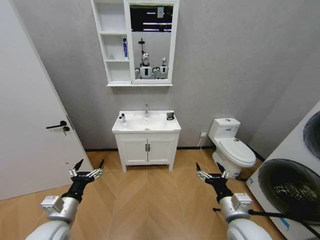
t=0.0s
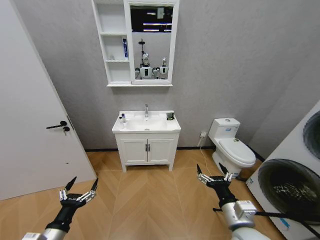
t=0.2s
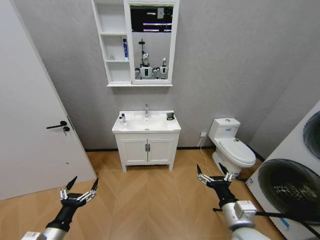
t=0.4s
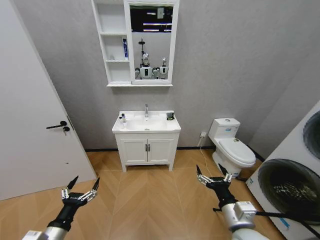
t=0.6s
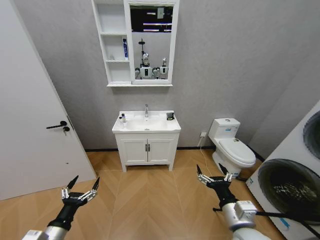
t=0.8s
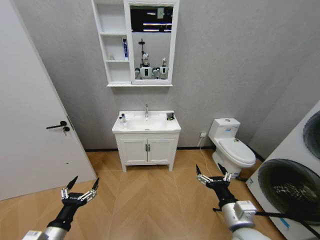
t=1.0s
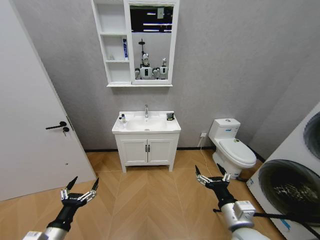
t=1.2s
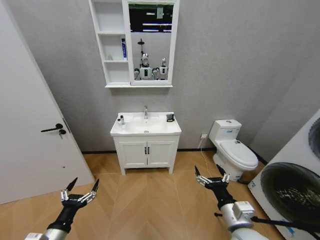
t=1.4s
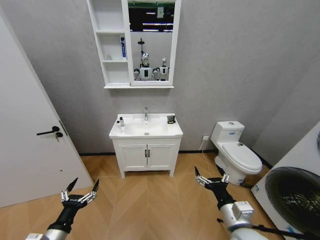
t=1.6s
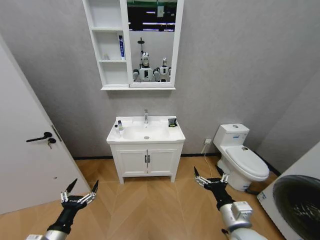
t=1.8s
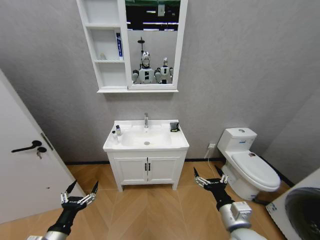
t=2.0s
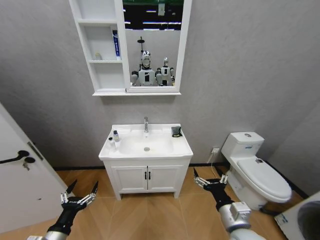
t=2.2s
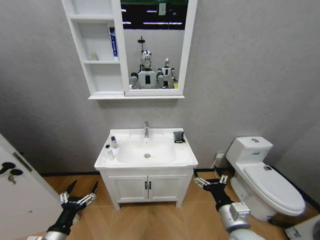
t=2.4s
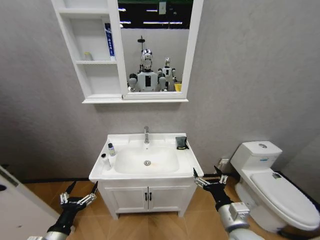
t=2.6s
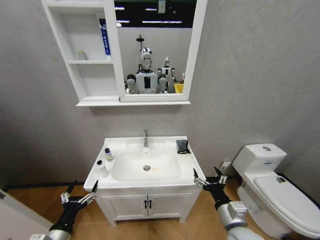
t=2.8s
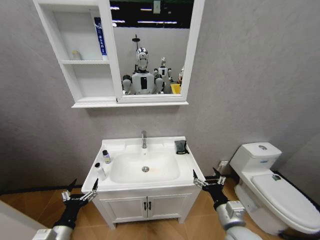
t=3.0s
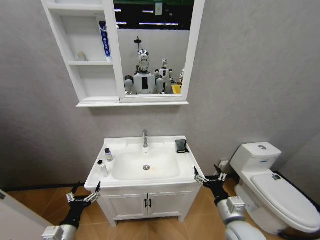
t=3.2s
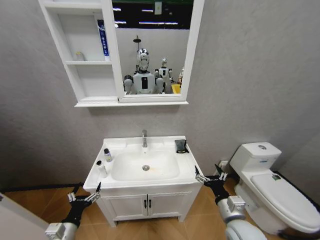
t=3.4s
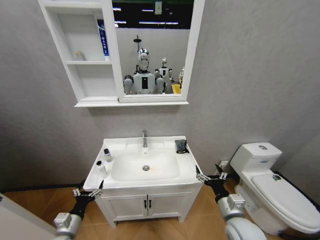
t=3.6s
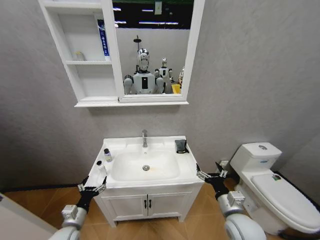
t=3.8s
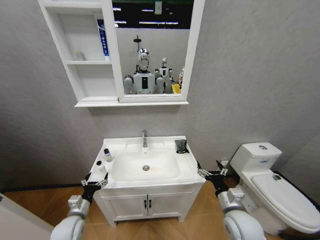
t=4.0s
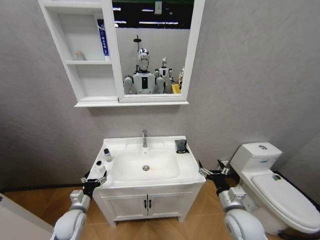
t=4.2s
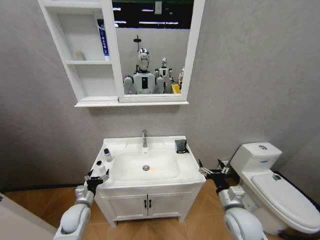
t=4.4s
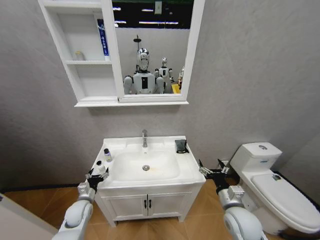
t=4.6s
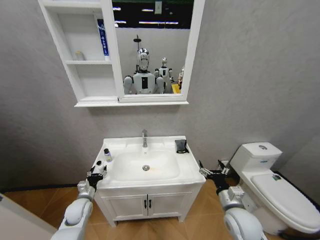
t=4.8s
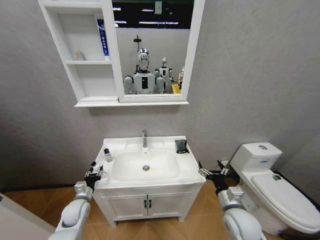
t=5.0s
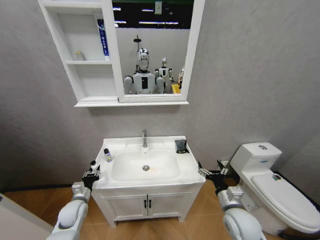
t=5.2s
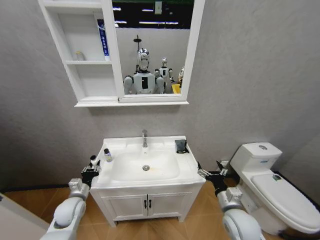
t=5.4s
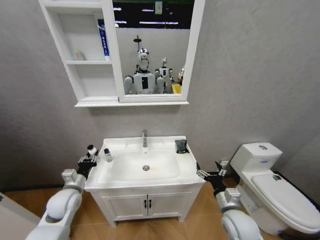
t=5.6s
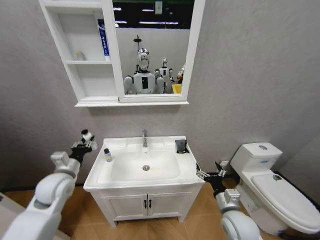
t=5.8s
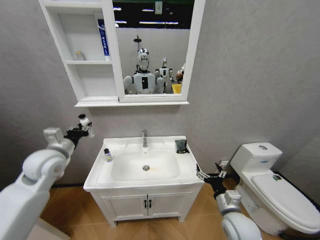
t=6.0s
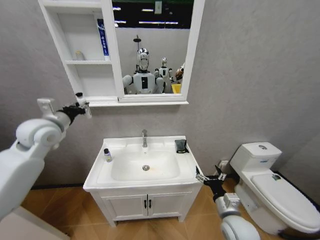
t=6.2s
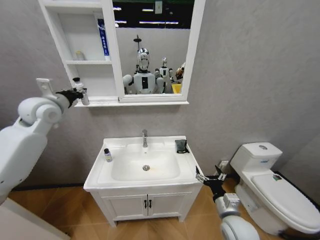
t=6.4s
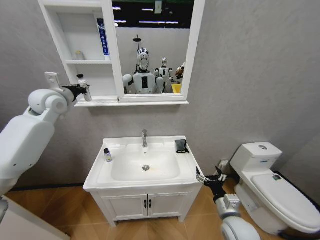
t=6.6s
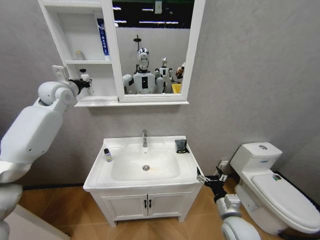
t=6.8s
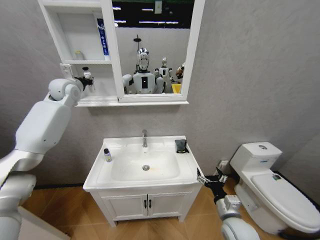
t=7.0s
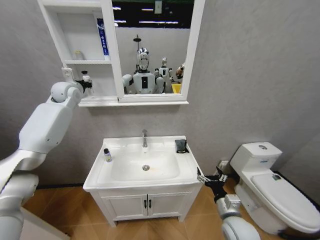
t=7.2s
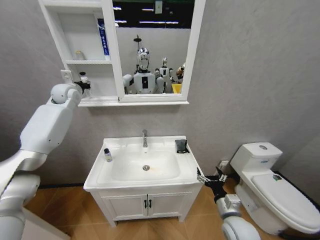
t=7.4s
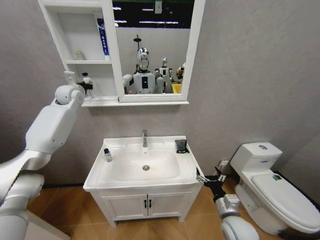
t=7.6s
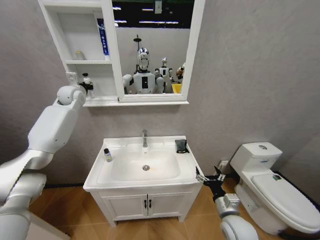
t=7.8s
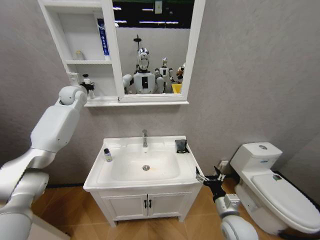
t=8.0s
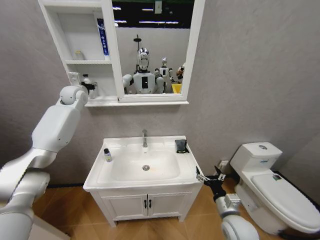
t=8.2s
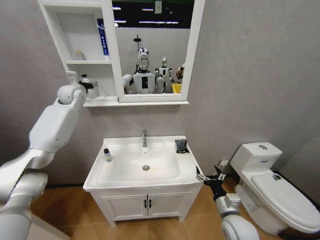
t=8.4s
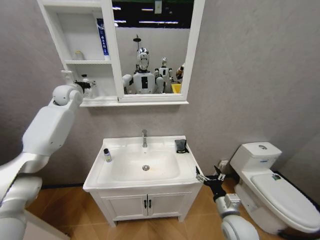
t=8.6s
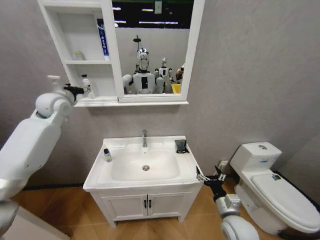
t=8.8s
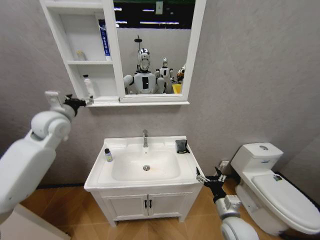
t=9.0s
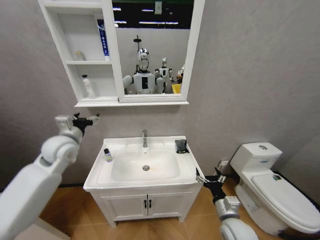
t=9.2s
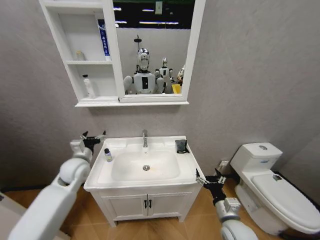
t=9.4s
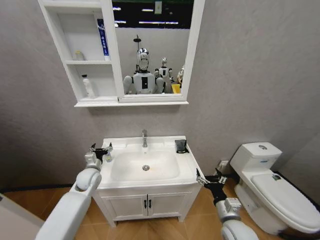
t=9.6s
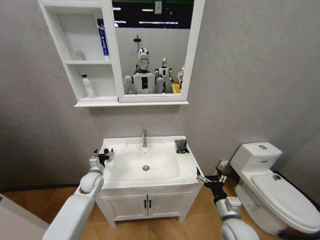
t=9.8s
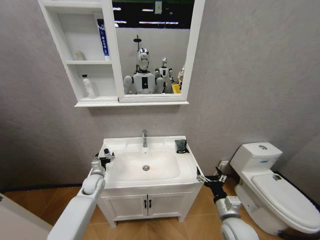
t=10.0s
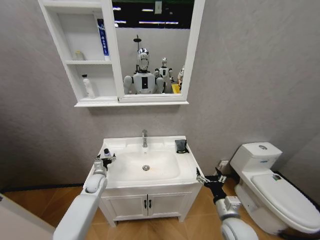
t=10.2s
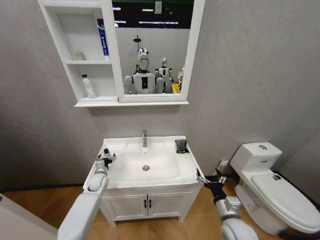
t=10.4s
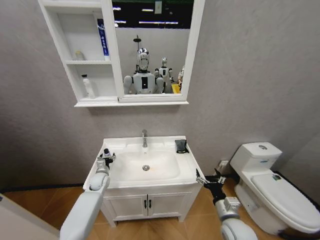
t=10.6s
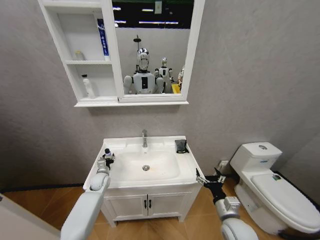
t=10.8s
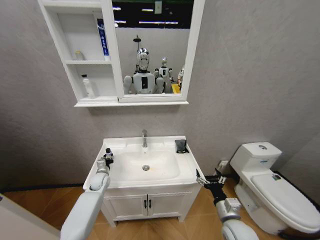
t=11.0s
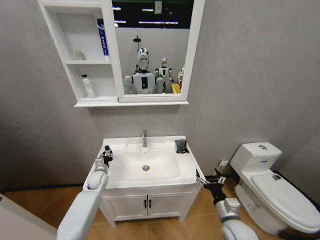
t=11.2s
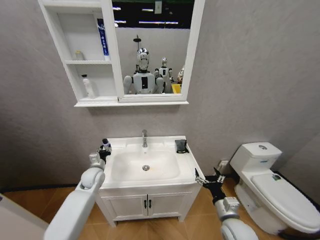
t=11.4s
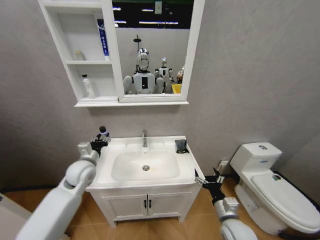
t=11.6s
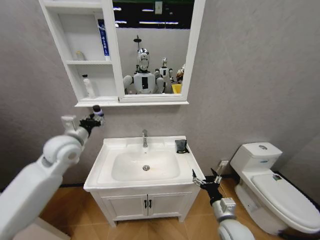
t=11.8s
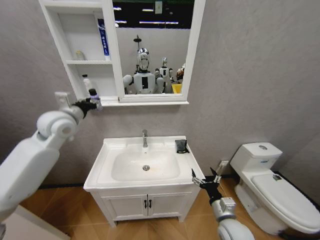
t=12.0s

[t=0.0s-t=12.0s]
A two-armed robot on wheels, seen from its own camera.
Task of the whole recording: Move facial cleanser and shampoo from washbasin to cabinet, then wipe washbasin with towel.
t=3.0s to t=4.4s: The right gripper moves forward, some 5 cm; the left gripper is displaced forward and downward by about 15 cm.
t=4.4s to t=6.0s: The left gripper moves upward, approximately 25 cm, and closes.
t=6.0s to t=7.6s: The left gripper heads forward and upward, covering approximately 30 cm.
t=7.6s to t=9.0s: The left gripper is displaced backward by about 15 cm, and opens up.
t=9.0s to t=10.4s: The left gripper travels downward by about 35 cm.
t=10.4s to t=12.0s: The left gripper goes about 40 cm upward, and closes.

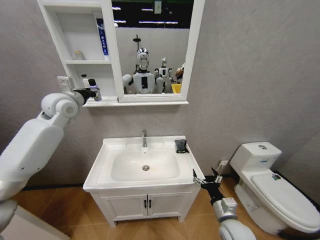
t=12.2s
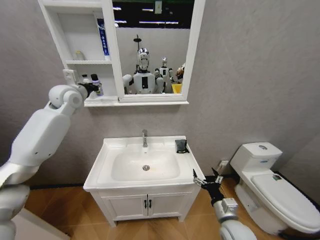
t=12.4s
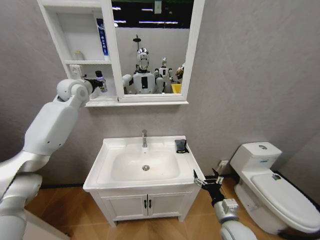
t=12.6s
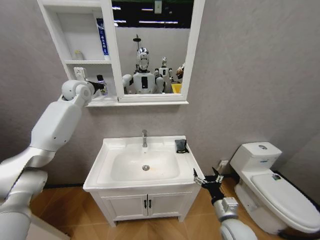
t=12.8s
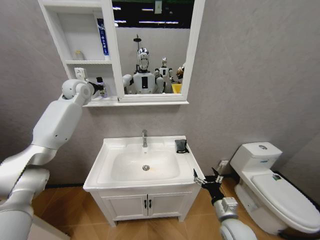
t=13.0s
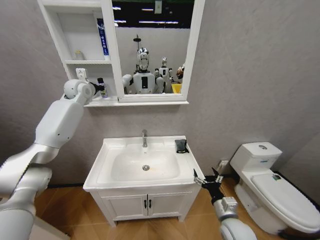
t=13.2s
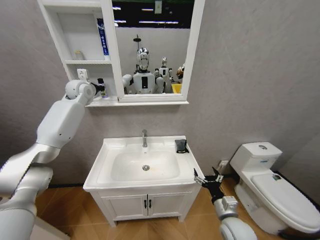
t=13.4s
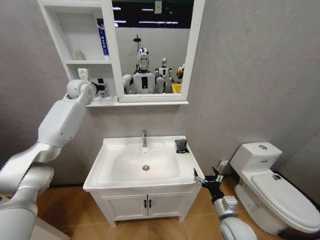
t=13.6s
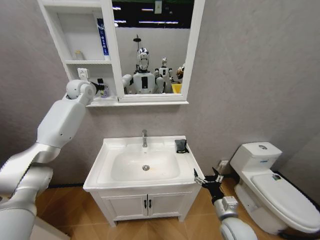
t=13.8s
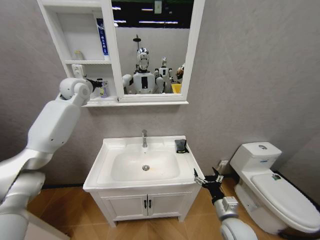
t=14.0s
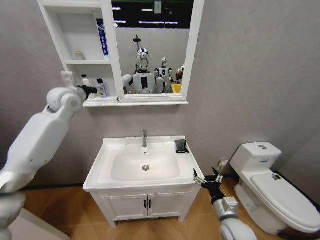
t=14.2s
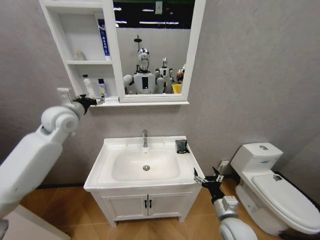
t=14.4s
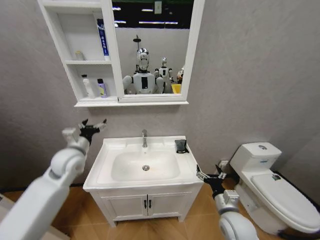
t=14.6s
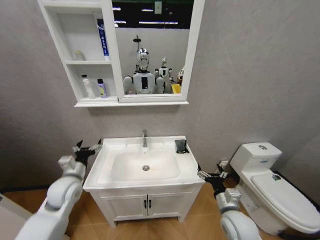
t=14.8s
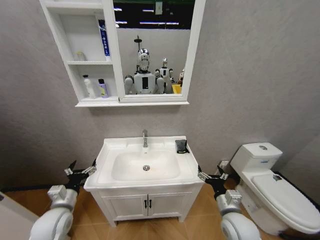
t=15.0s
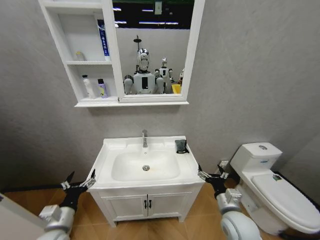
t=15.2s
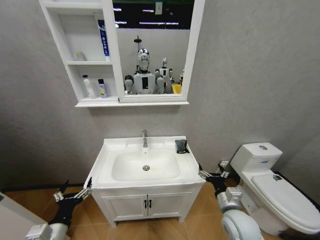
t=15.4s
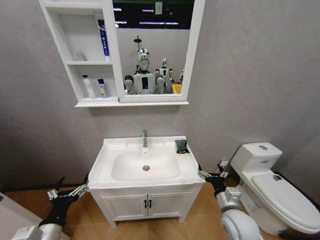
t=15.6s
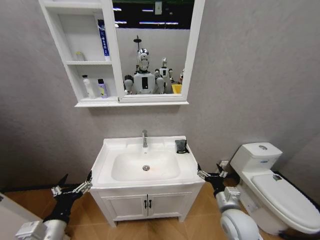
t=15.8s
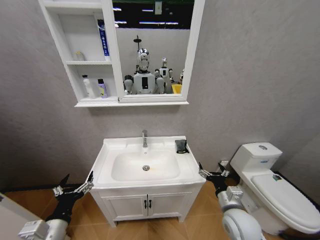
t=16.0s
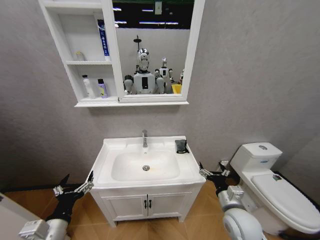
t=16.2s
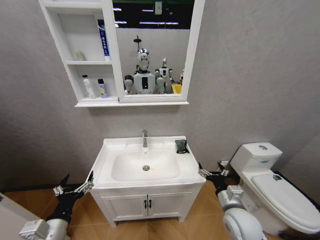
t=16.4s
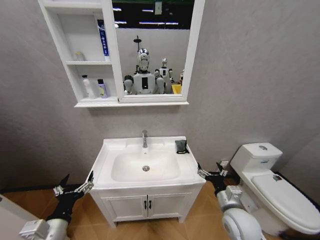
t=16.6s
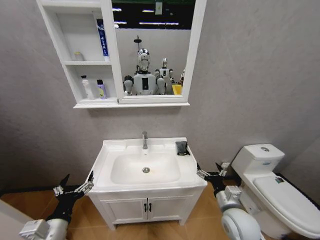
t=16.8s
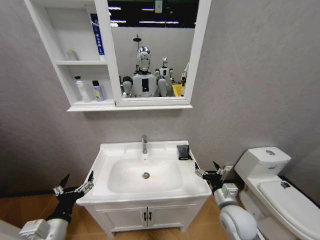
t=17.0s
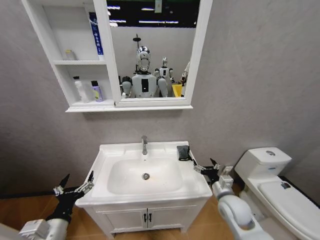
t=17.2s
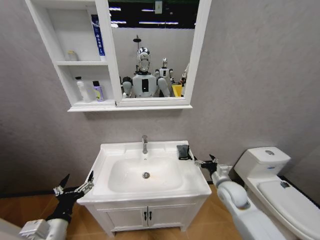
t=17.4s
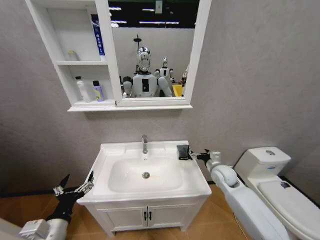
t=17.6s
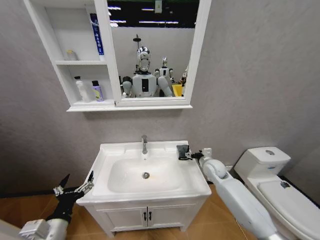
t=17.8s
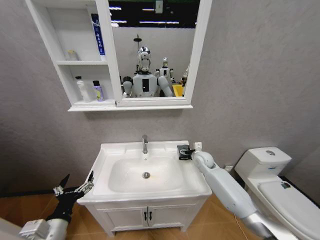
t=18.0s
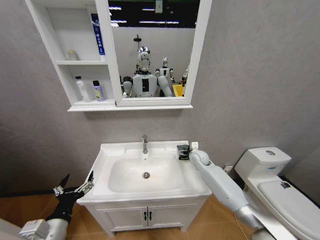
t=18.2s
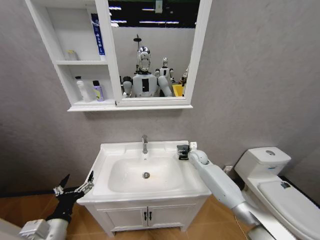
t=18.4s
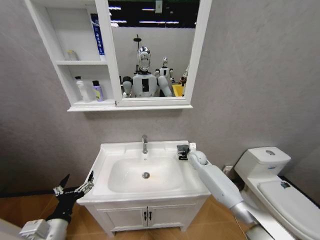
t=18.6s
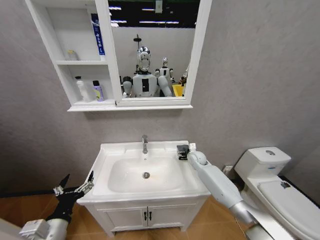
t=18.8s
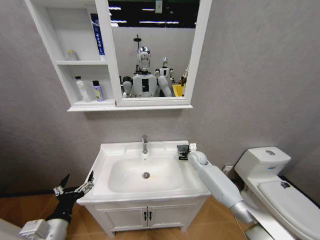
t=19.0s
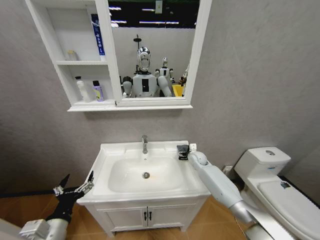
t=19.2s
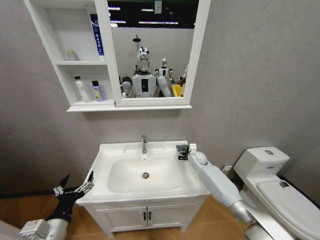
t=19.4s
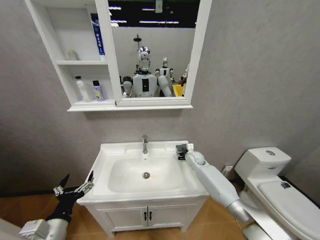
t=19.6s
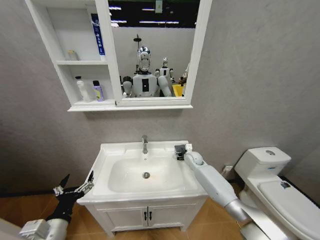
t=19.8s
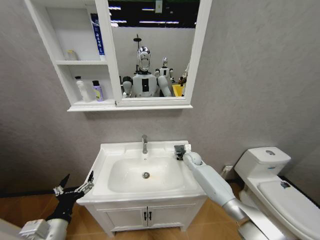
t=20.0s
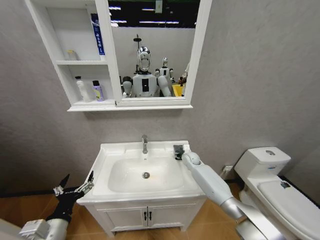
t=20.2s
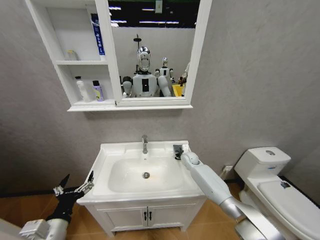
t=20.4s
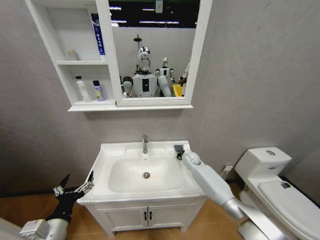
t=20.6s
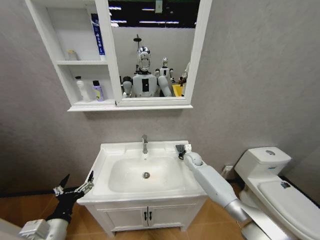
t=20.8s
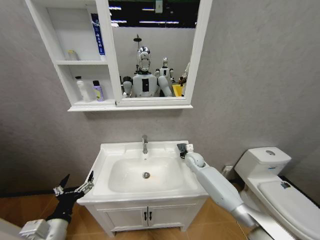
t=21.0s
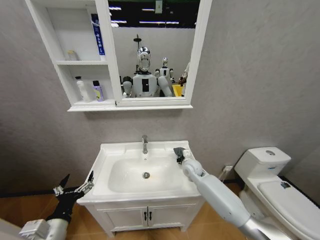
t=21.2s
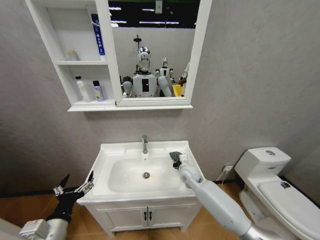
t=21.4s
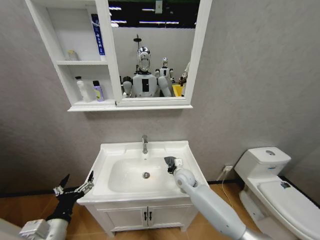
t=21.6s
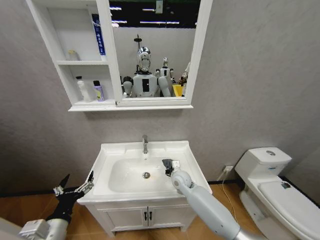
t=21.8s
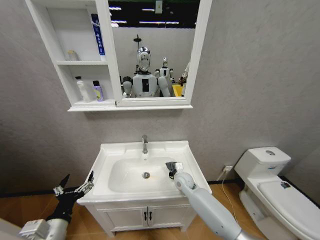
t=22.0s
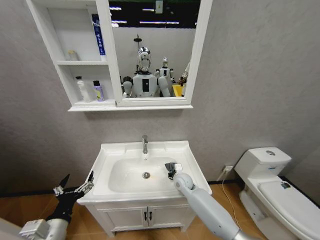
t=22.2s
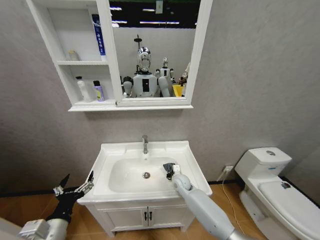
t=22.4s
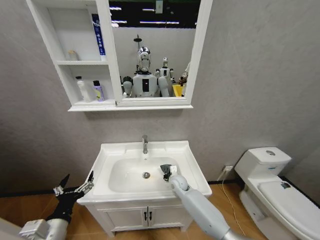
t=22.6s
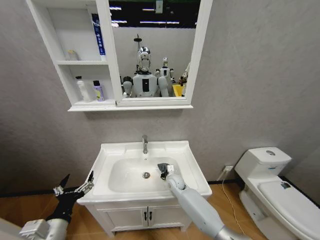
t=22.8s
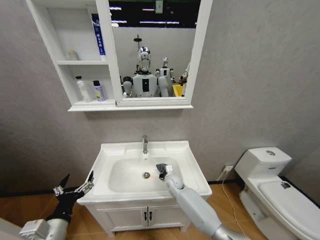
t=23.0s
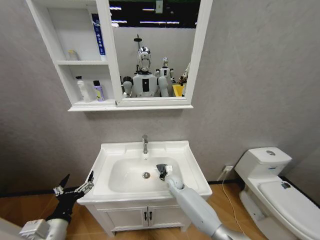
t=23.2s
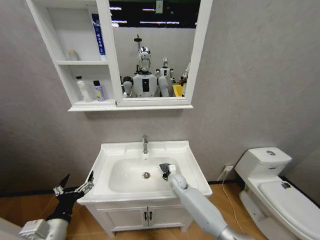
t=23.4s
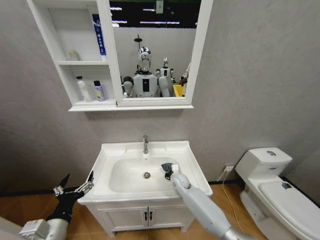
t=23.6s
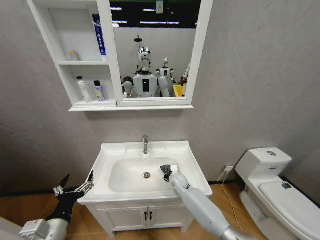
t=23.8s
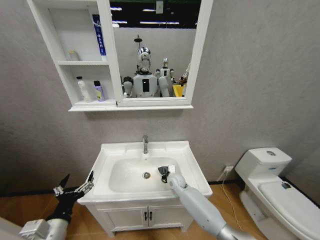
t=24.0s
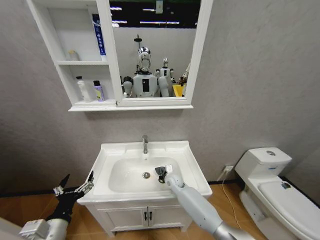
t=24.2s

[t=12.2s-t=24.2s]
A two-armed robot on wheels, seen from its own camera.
Task of the whole recording: Move facial cleanser and shampoo from washbasin to cabinet, then wipe washbasin with towel.
t=12.2s to t=13.8s: The left gripper moves forward, roughly 10 cm, and opens up.
t=13.8s to t=15.2s: The left gripper shifts roughly 50 cm backward and downward.
t=15.2s to t=16.6s: The left gripper moves upward, approximately 5 cm.
t=16.6s to t=18.2s: The right gripper goes roughly 30 cm forward.
t=18.2s to t=19.8s: There are only small adjustments of the grippers.
t=19.8s to t=21.2s: The right gripper is displaced backward by roughly 10 cm, and closes up.
t=21.2s to t=22.6s: The right gripper shifts roughly 10 cm downward and to the left.
t=22.6s to t=24.2s: The grippers make only small movements.
